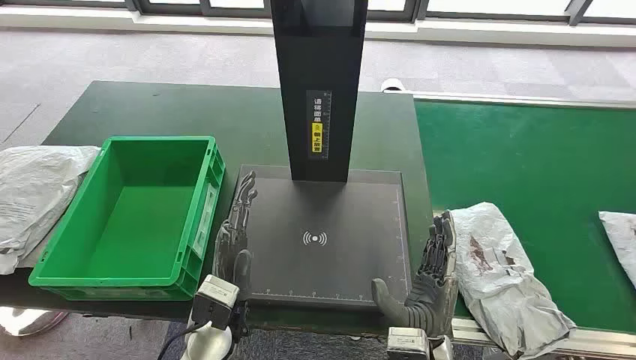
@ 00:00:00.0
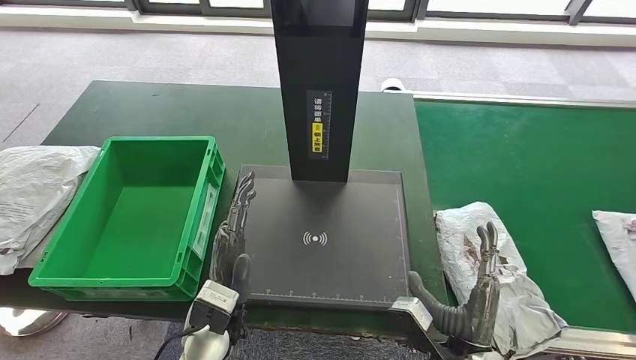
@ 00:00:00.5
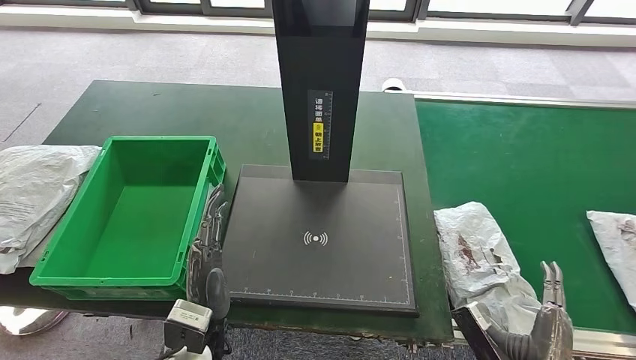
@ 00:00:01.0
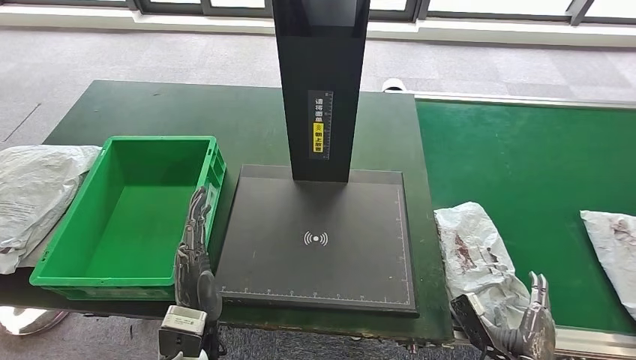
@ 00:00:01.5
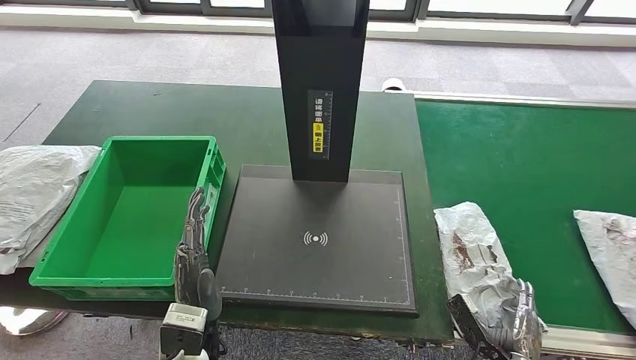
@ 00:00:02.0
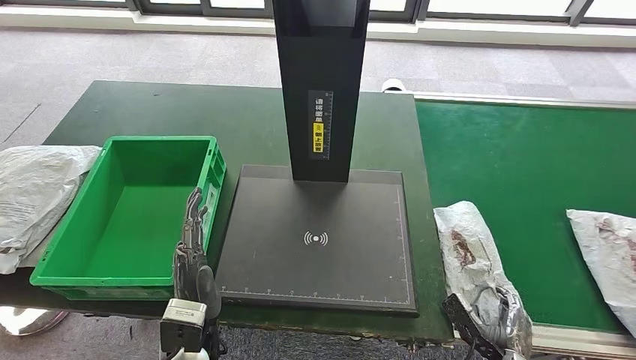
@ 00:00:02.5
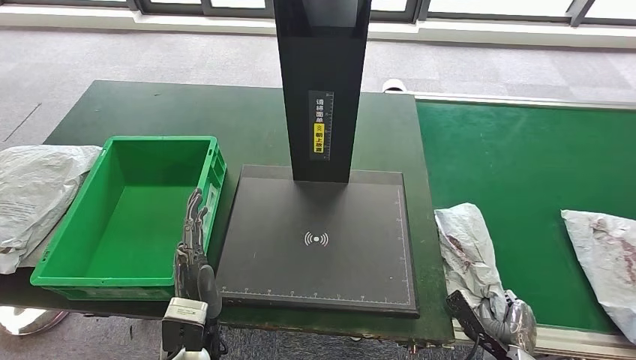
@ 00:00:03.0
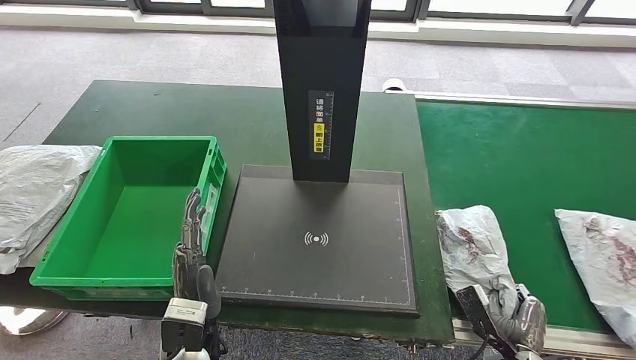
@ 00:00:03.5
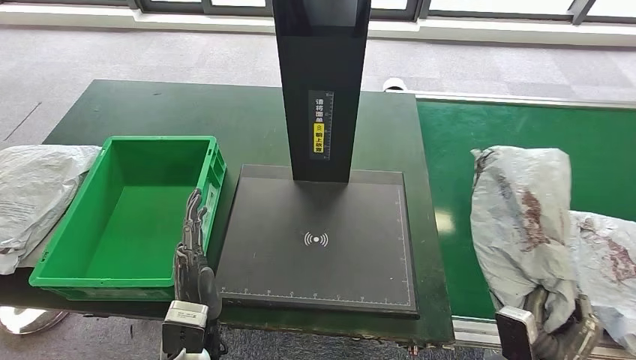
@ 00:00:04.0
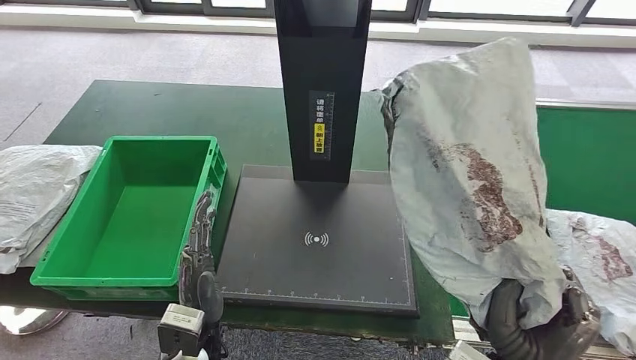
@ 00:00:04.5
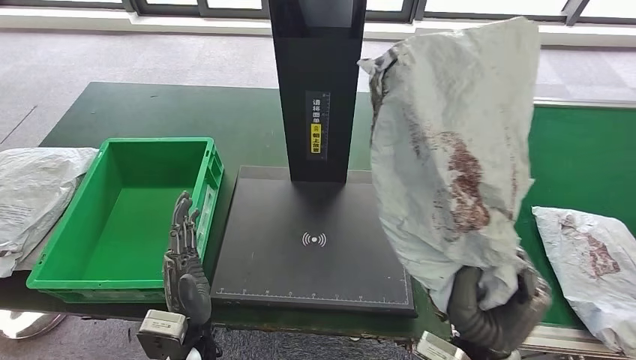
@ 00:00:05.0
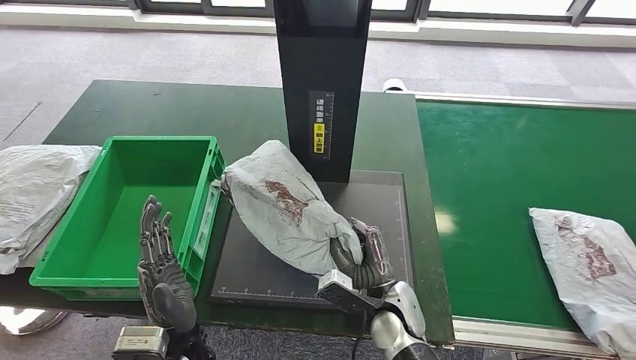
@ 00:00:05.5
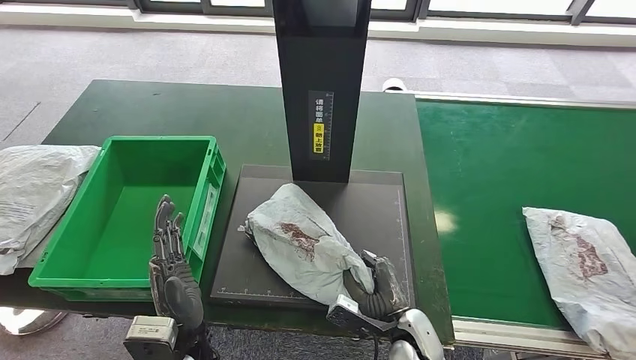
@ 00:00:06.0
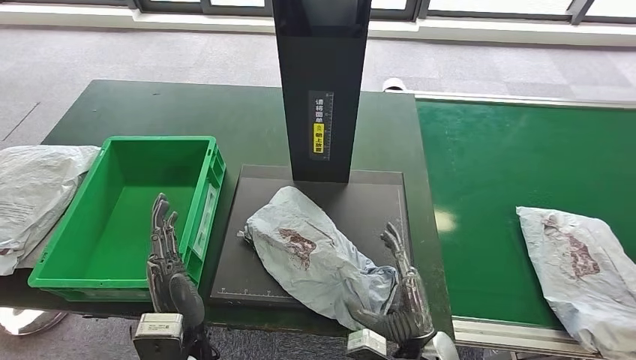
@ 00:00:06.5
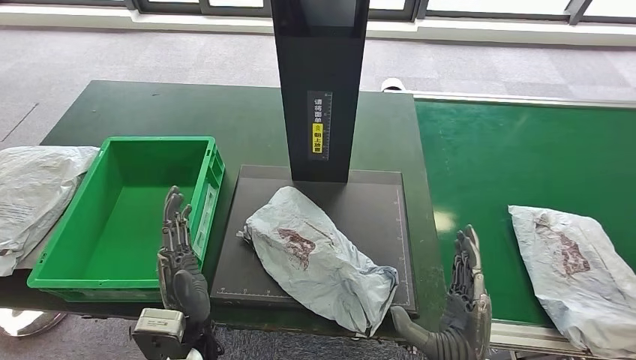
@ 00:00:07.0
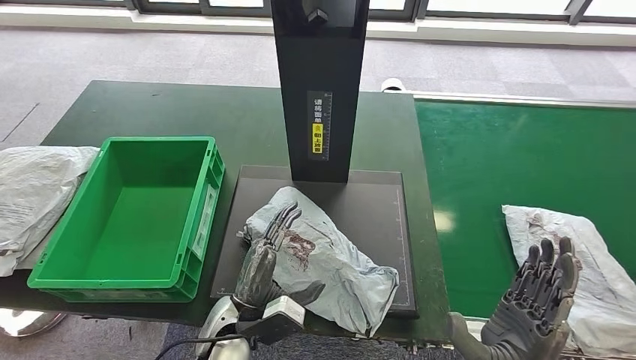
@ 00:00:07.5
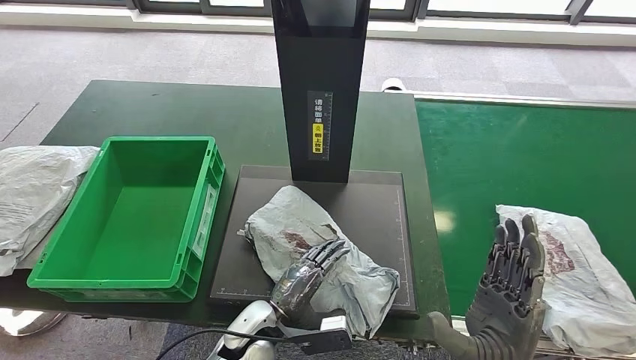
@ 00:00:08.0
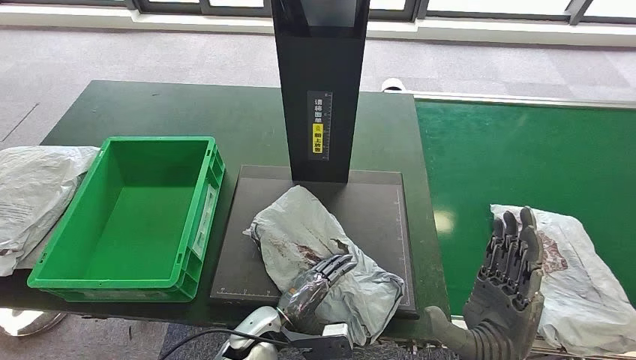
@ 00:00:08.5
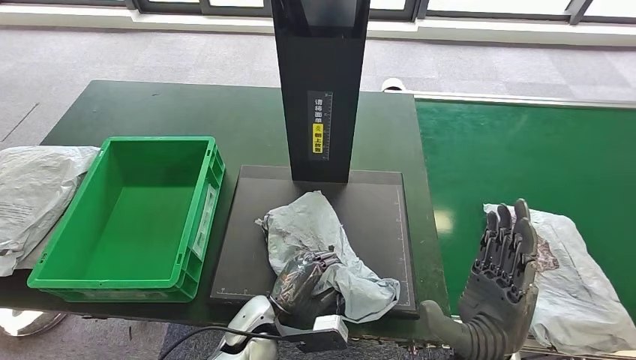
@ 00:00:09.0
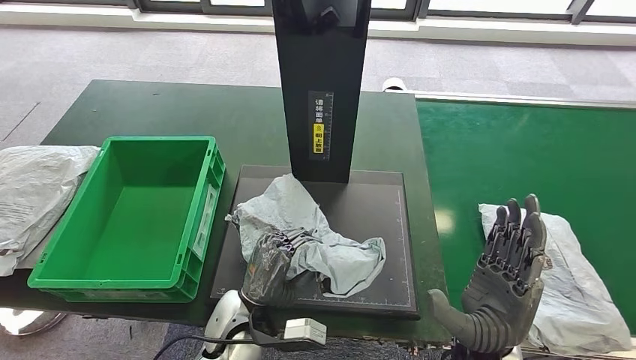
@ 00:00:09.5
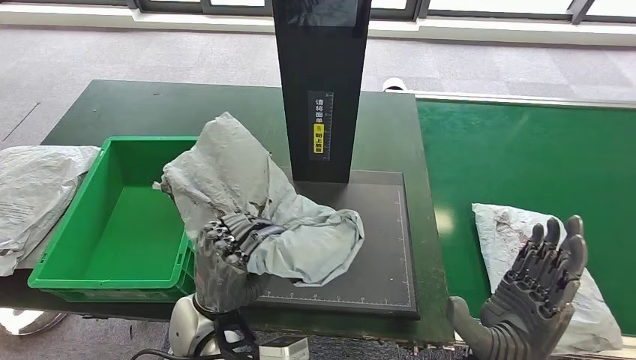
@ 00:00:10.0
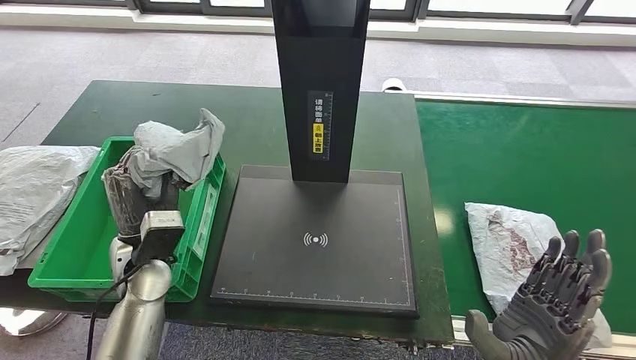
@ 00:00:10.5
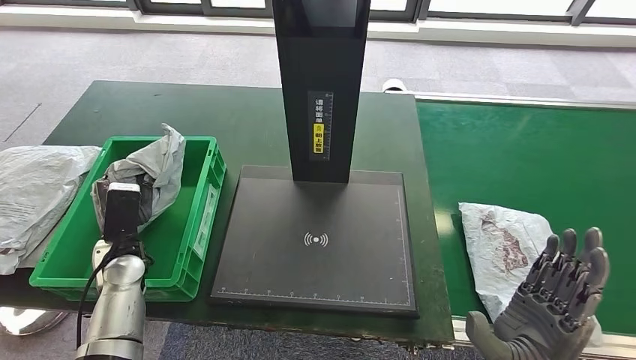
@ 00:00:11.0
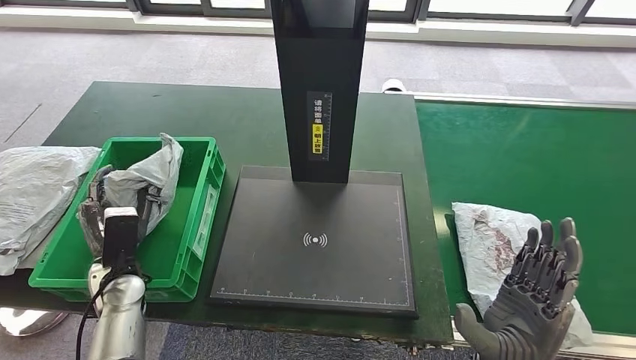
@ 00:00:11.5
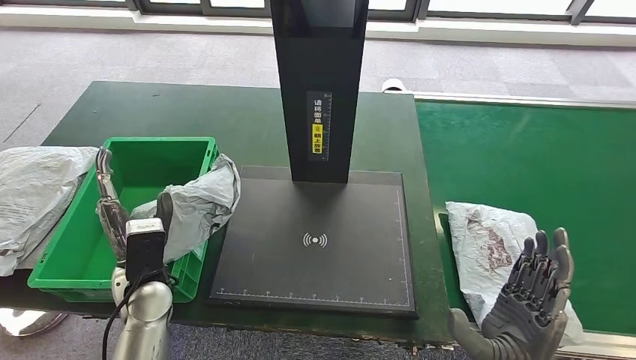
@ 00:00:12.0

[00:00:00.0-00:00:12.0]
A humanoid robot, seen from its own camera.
Step, 00:00:00.0 to 00:00:04.0: Take the parcel off the conveyor belt.
Step, 00:00:04.5 to 00:00:08.0: Place the parcel onto the inbound machine.
Step, 00:00:08.5 to 00:00:10.0: Pick up the parcel from the inbound machine.
00:00:04.0 to 00:00:06.0: The right hand heads to the left and forward, covering roughly 20 cm.
00:00:06.0 to 00:00:08.0: The right hand travels upward by about 15 cm; the left hand is displaced to the right and downward by roughly 10 cm.

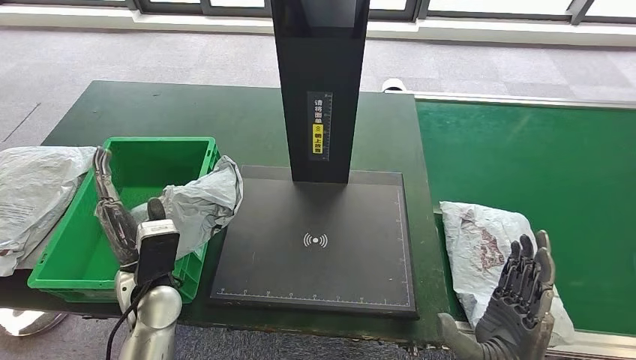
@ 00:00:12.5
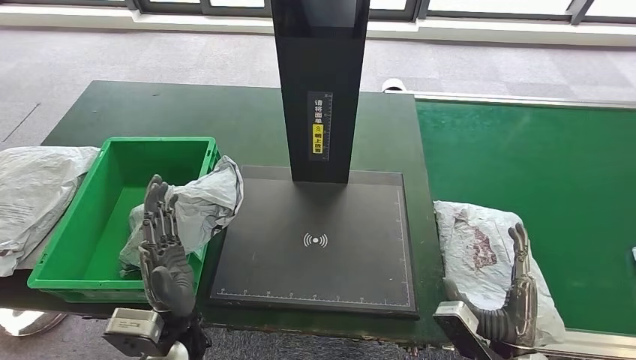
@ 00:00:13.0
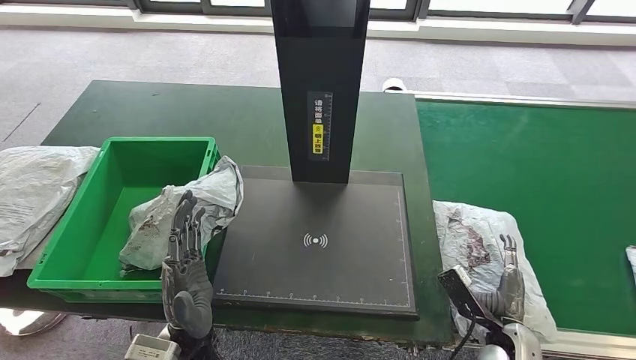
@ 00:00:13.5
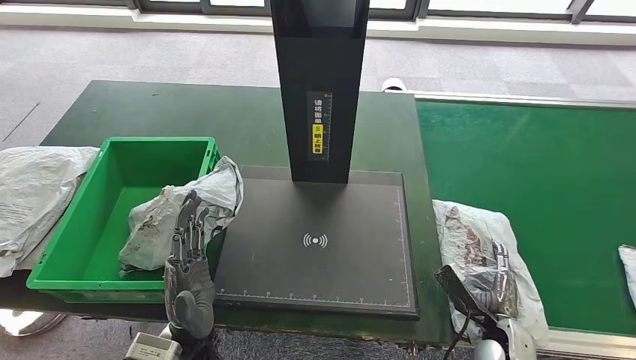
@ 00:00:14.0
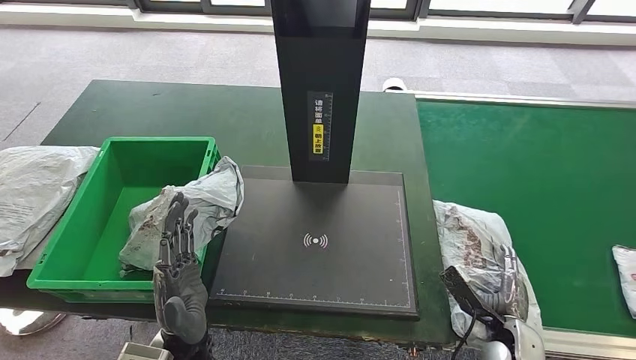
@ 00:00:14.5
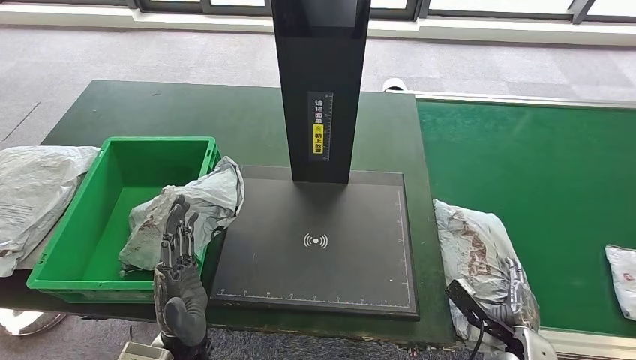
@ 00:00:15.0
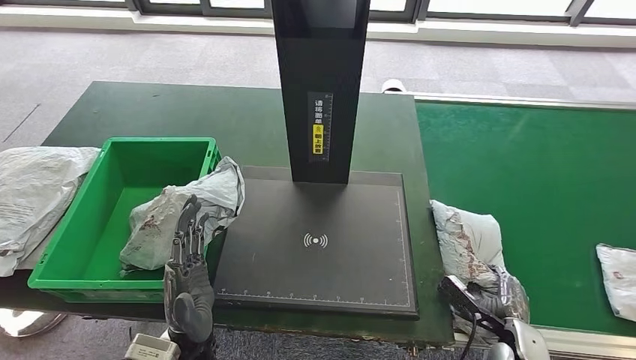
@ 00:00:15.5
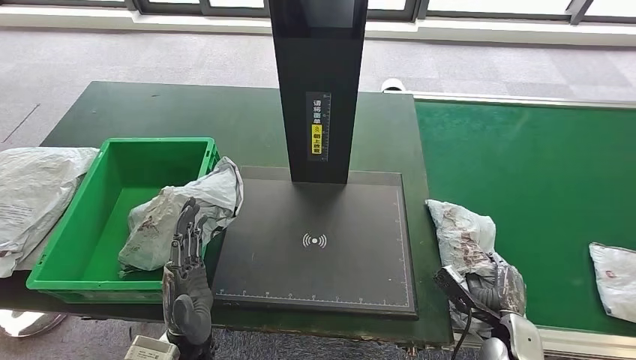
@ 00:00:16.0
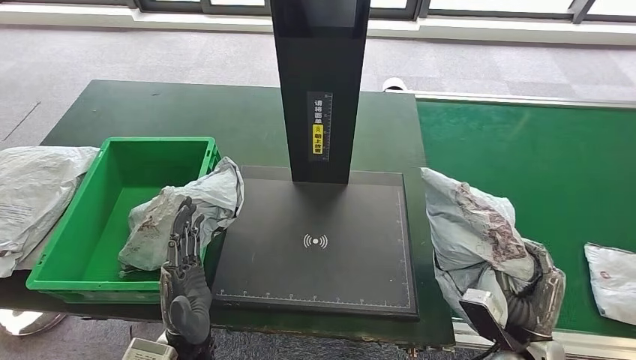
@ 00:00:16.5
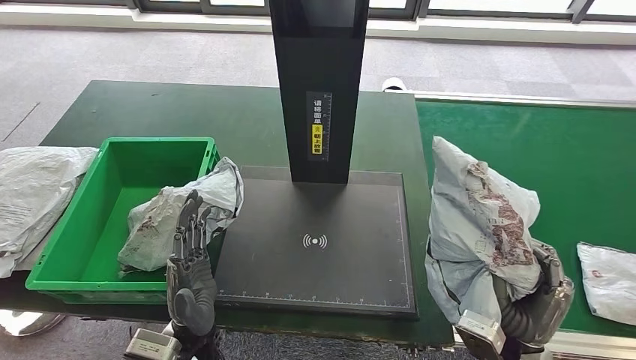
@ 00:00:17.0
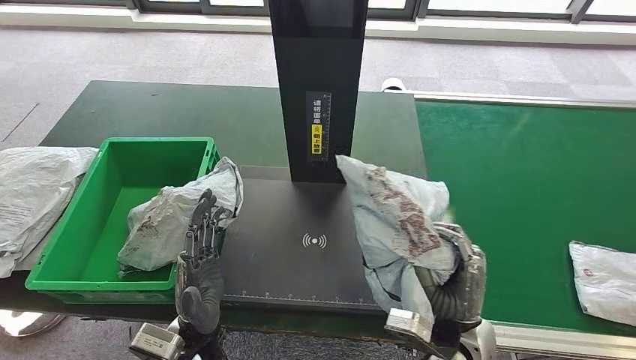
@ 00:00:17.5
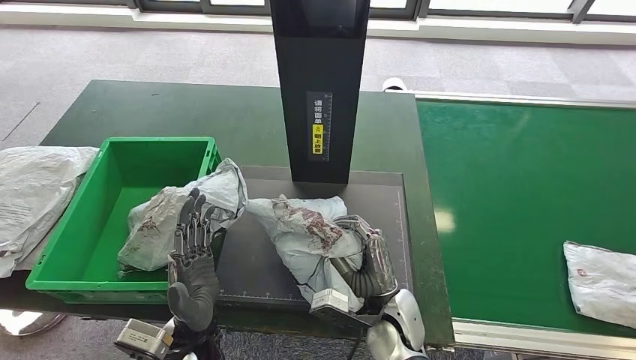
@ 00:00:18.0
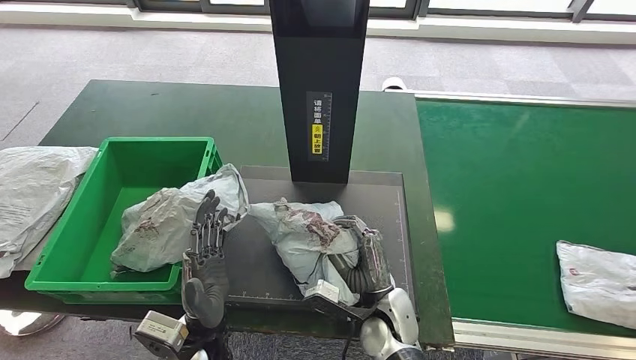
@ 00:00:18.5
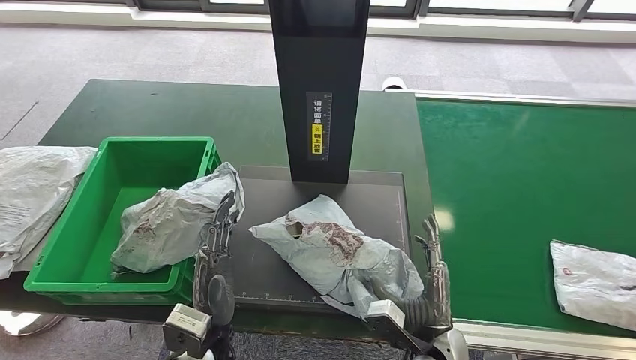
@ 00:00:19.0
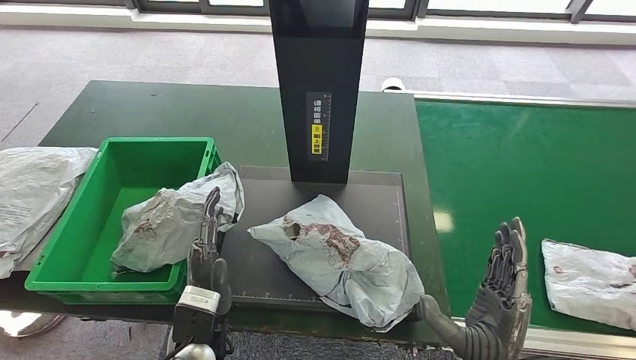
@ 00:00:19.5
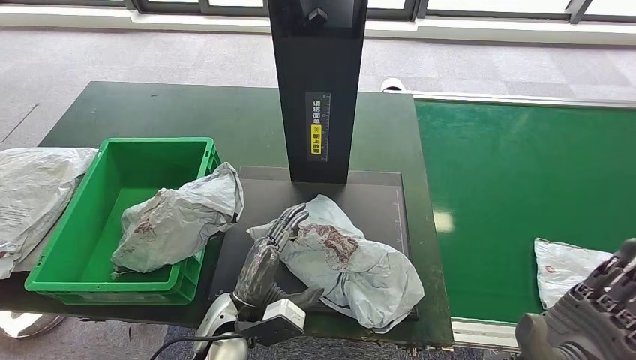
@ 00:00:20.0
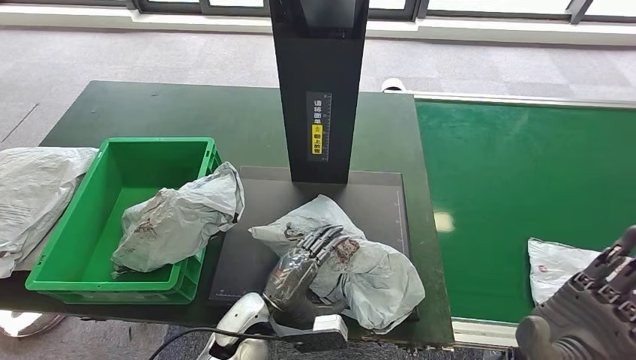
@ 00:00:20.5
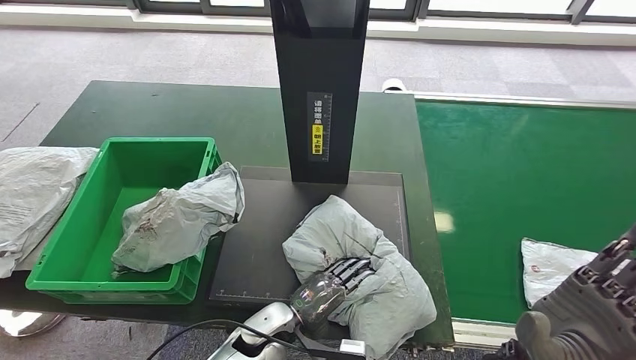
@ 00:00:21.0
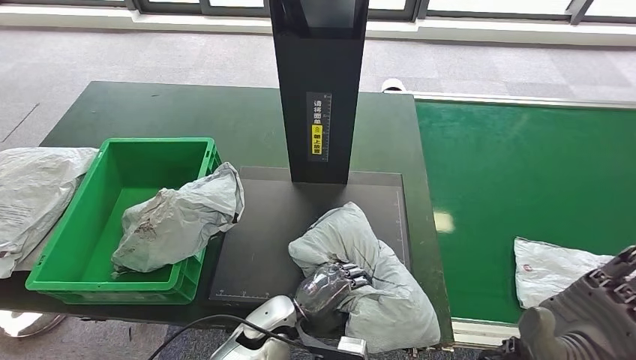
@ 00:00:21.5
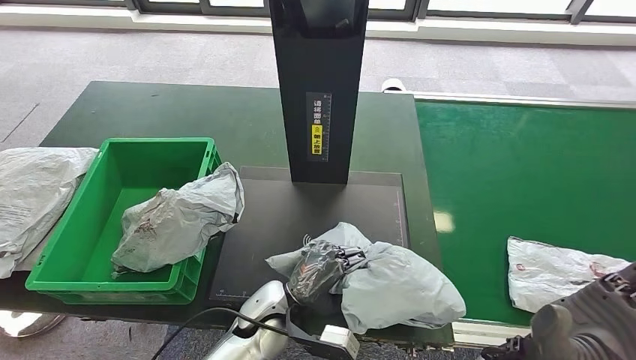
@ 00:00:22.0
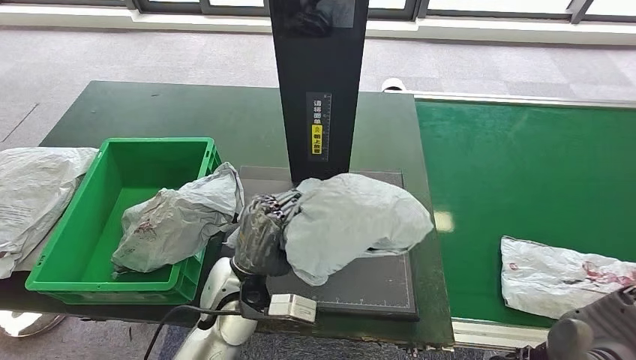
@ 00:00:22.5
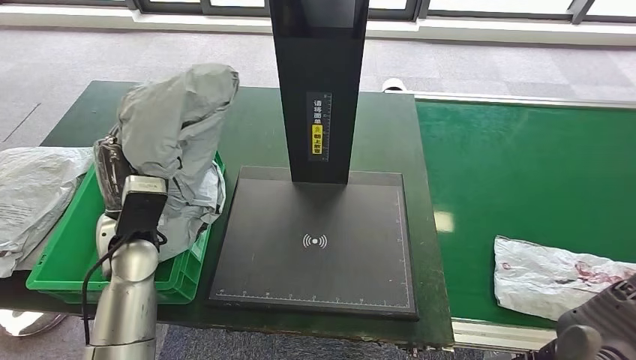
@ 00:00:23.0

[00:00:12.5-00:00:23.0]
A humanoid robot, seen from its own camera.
Step, 00:00:12.5 to 00:00:16.5: Pick up the parcel from the conveyor belt.
Step, 00:00:17.0 to 00:00:20.0: Place the parcel onto the inbound machine.
Step, 00:00:20.5 to 00:00:22.5: Pick up the parcel from the inbound machine.
00:00:12.5 to 00:00:14.5: The right hand is displaced downward, to the right and forward by approximately 20 cm, while the left hand travels backward and to the right by about 10 cm.
00:00:14.5 to 00:00:16.5: The right hand goes some 5 cm upward.
